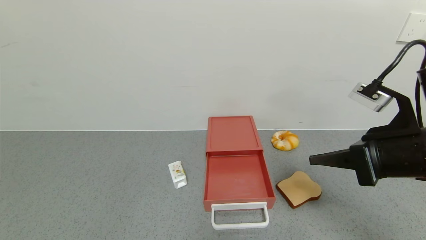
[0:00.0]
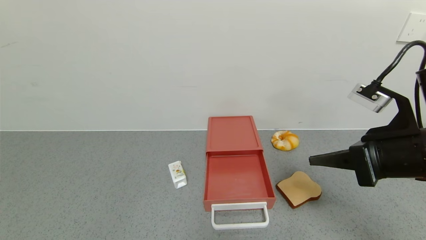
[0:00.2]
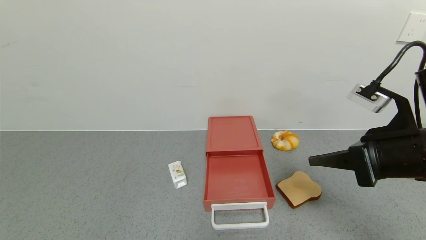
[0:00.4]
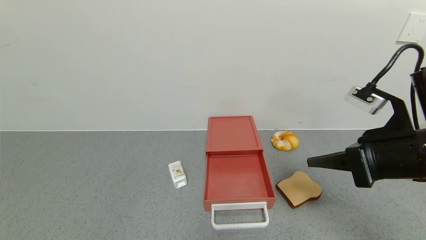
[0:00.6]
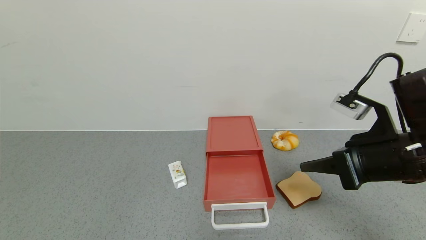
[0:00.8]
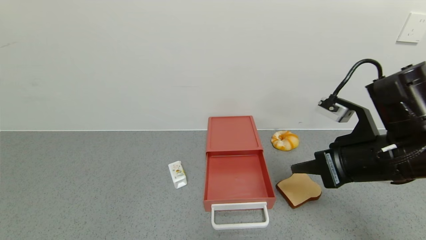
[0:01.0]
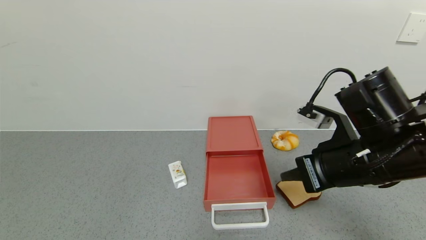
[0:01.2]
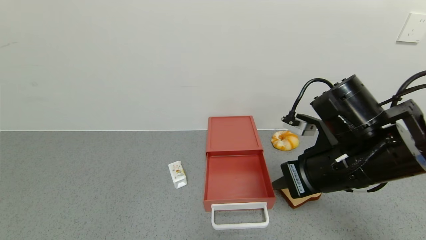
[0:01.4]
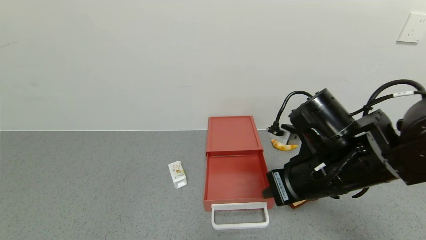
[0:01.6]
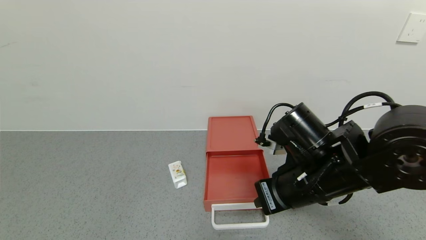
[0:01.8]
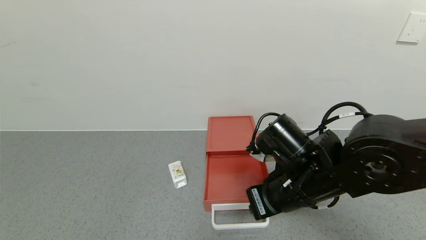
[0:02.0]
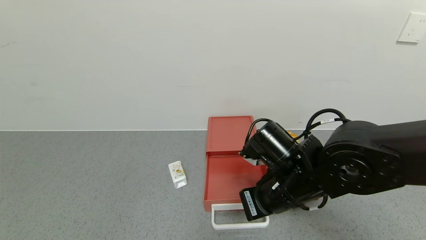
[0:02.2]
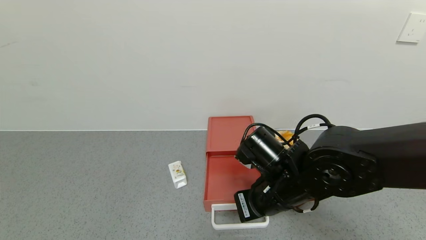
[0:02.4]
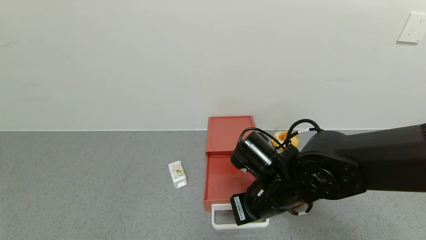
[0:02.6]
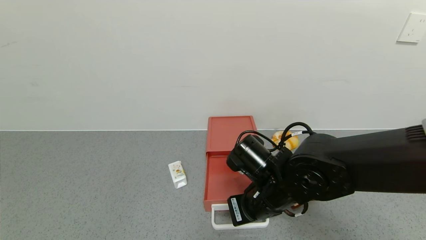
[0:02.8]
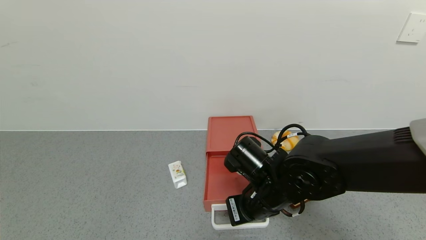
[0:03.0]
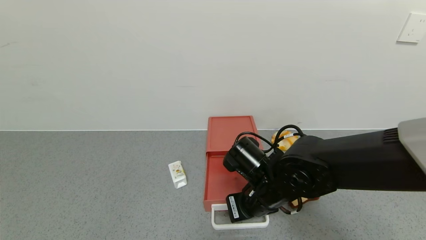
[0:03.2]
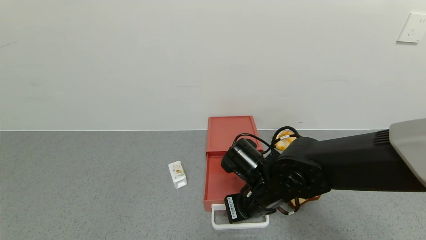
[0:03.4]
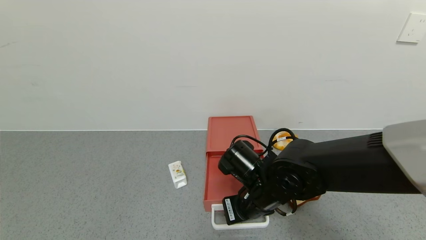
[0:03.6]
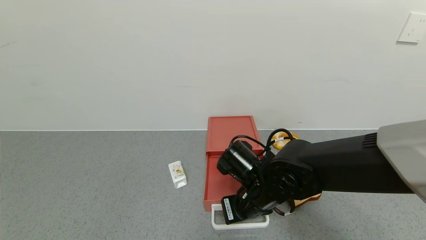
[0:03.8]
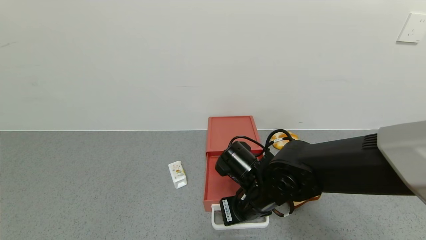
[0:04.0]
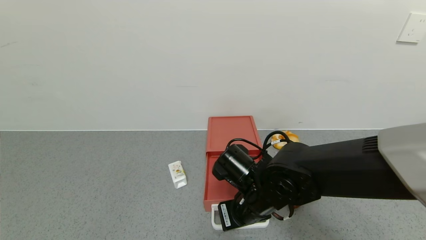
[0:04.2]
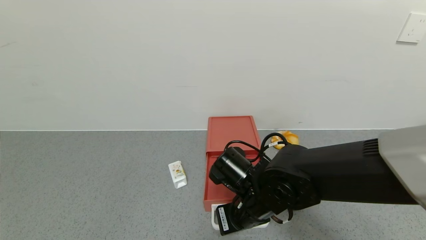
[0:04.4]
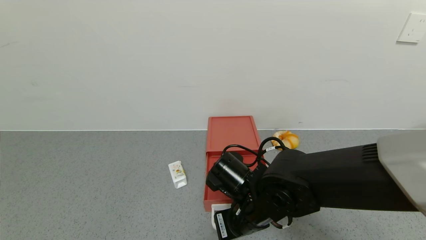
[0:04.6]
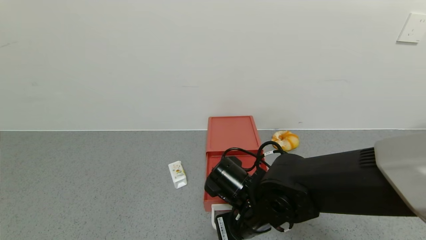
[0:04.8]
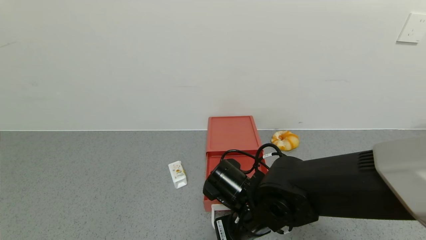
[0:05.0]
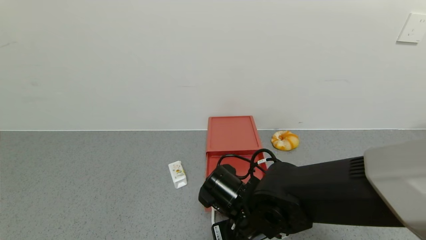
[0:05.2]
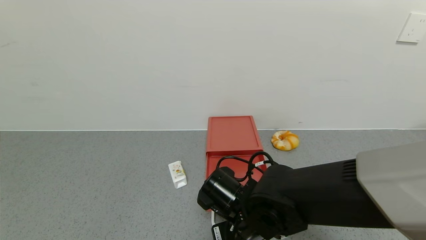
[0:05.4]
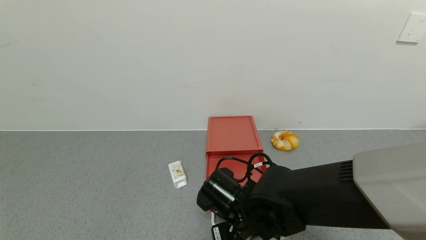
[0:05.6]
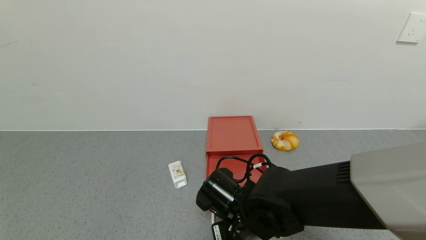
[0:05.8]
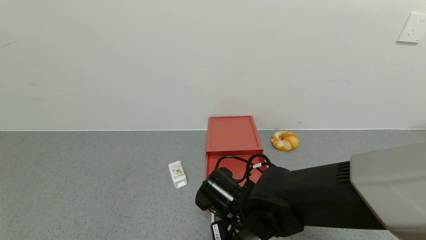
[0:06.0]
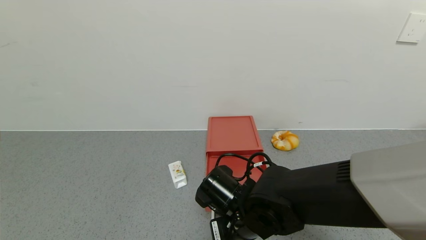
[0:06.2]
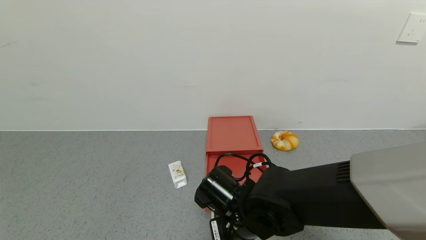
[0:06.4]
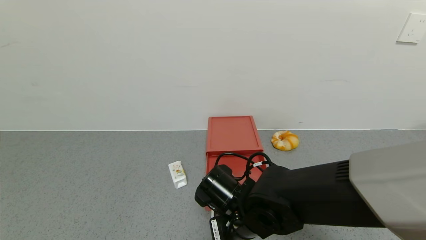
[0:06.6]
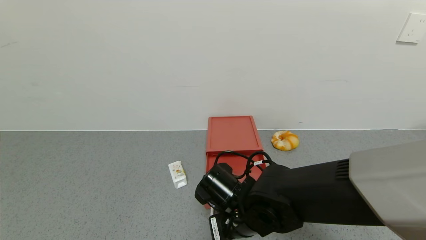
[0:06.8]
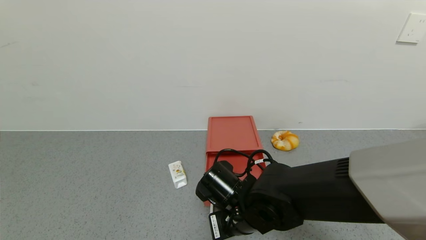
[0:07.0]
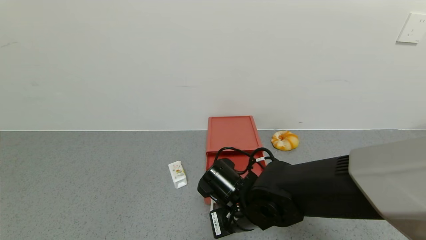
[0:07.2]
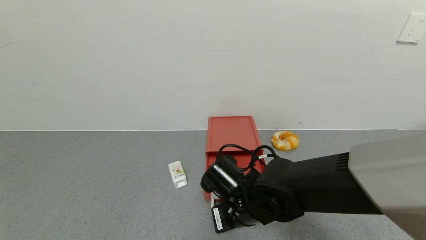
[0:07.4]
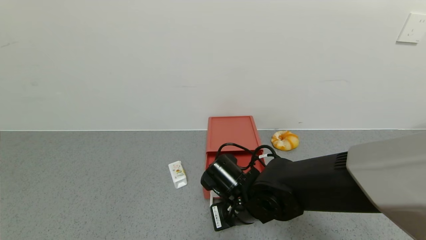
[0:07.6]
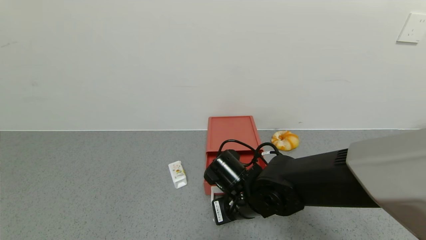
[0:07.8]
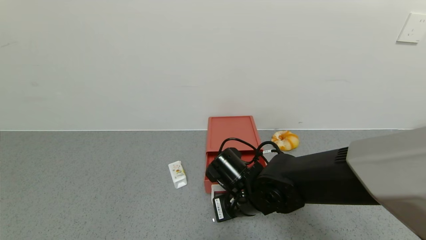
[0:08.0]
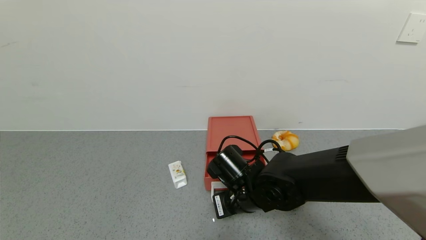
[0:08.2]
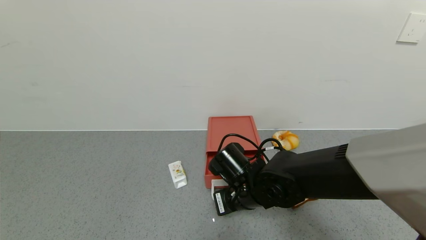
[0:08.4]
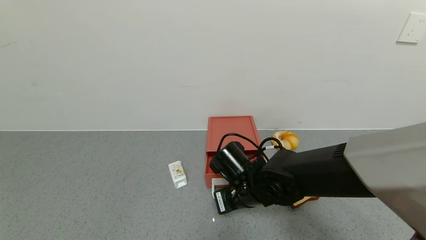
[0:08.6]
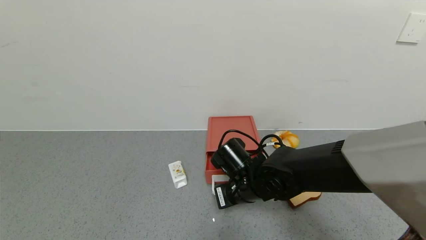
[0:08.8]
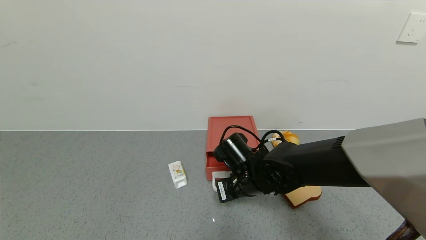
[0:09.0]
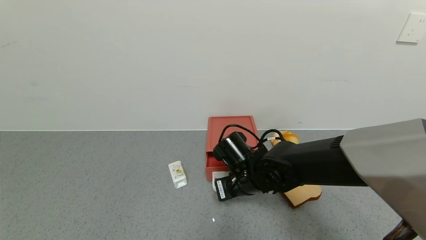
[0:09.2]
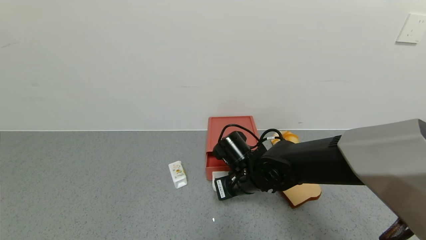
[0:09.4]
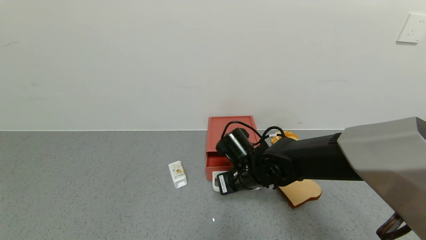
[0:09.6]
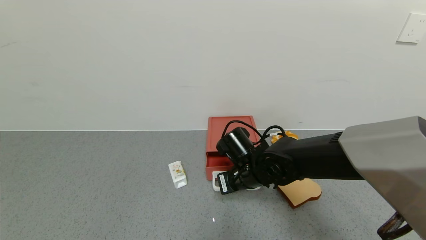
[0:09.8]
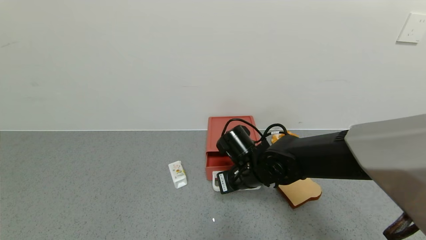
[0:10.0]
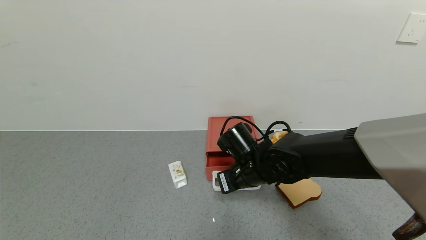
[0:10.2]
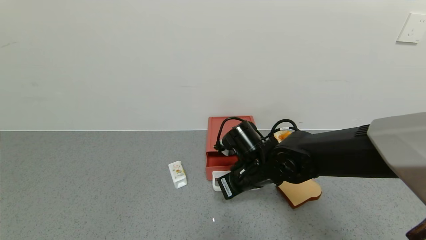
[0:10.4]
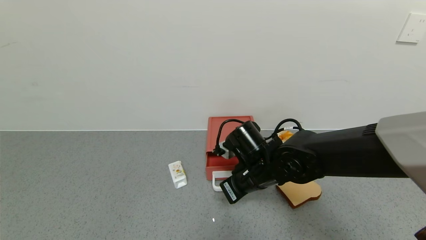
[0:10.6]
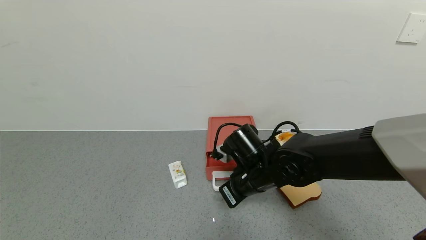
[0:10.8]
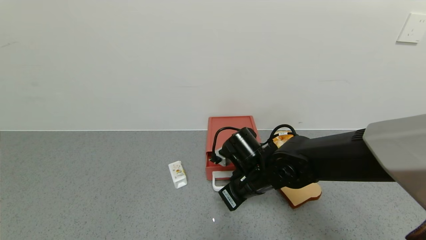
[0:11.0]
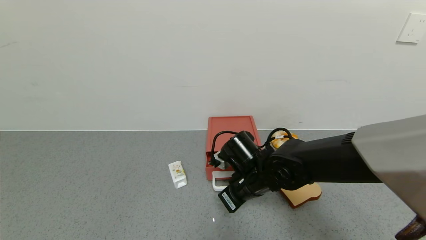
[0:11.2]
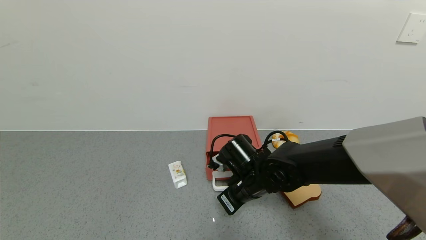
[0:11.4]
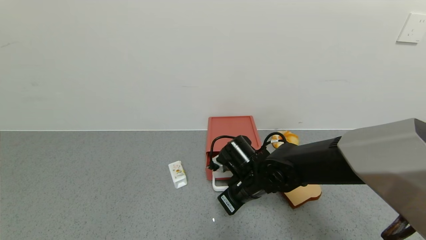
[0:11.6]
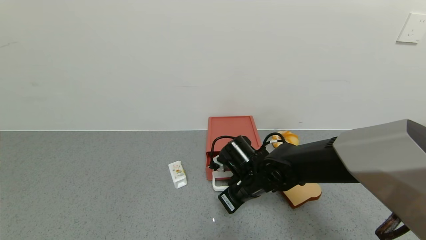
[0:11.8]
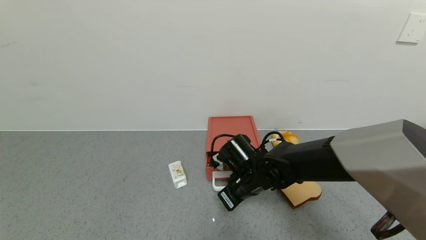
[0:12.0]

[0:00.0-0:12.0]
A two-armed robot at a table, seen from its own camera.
Task of the whole recording: use the gripper to open the drawer and close the red drawer.
0:00.0 to 0:01.6: The right gripper goes about 10 cm to the left and downward.
0:01.6 to 0:03.0: The right gripper moves downward and to the left, roughly 10 cm.
0:03.0 to 0:04.4: The grippers stay close to where they were, moving slightly.
0:04.4 to 0:09.0: The grippers move only a little.
0:09.0 to 0:10.4: There are only small adjustments of the grippers.
0:10.4 to 0:12.0: The grippers move only a little.

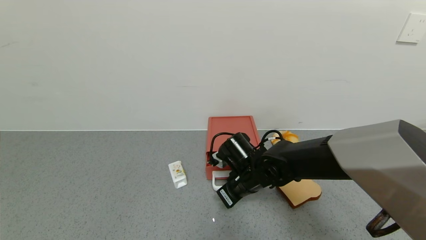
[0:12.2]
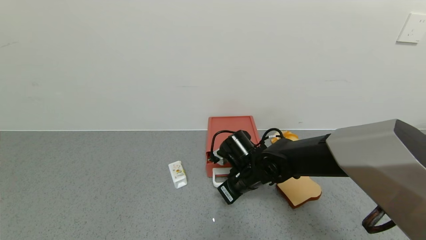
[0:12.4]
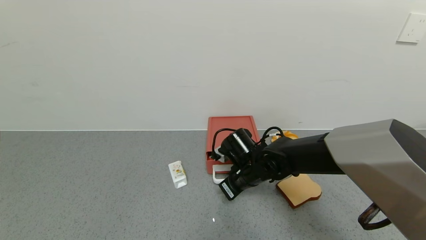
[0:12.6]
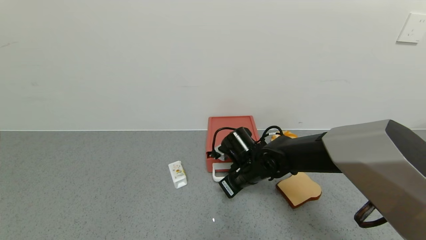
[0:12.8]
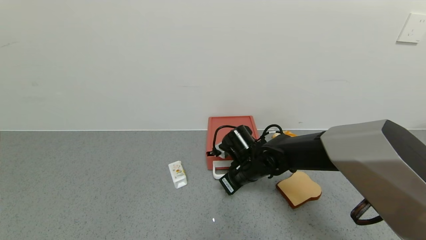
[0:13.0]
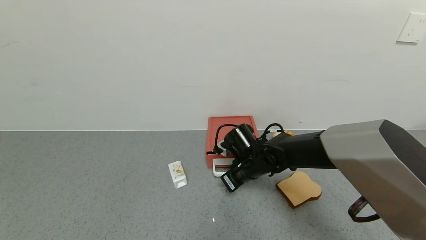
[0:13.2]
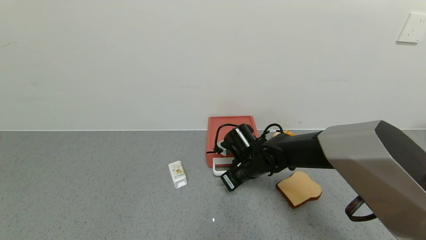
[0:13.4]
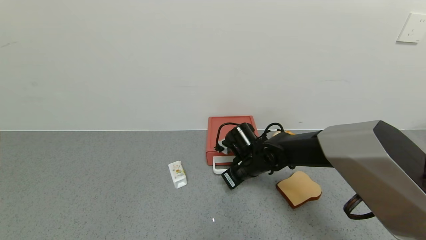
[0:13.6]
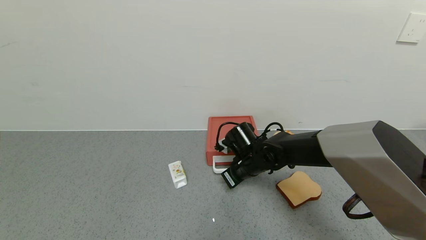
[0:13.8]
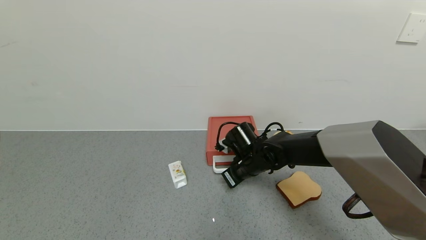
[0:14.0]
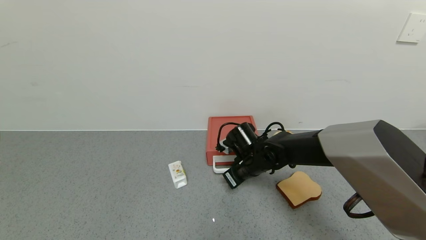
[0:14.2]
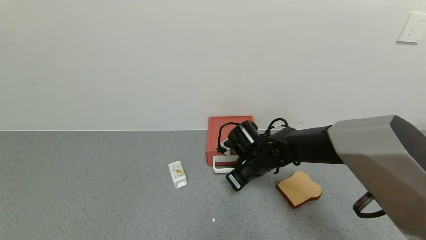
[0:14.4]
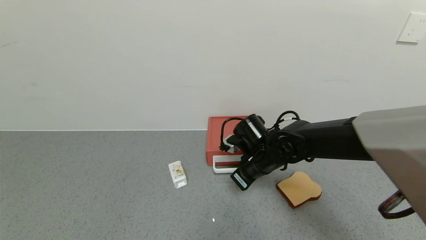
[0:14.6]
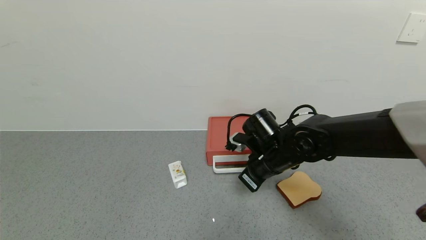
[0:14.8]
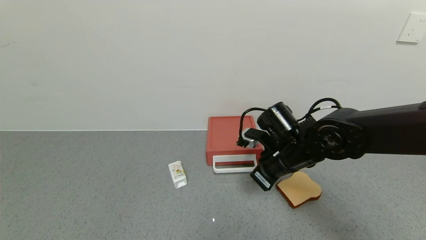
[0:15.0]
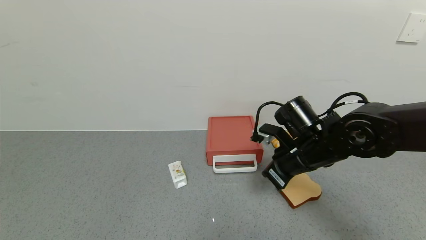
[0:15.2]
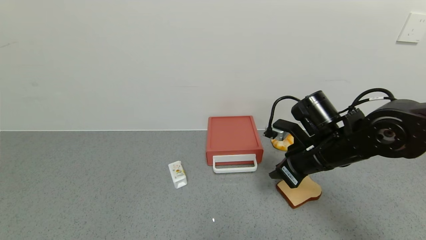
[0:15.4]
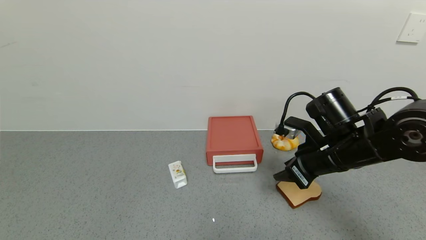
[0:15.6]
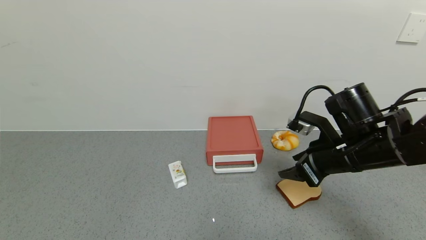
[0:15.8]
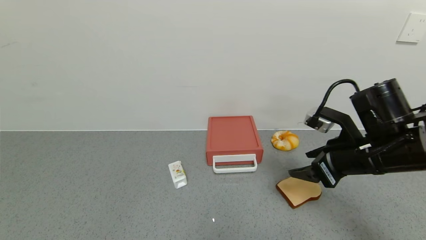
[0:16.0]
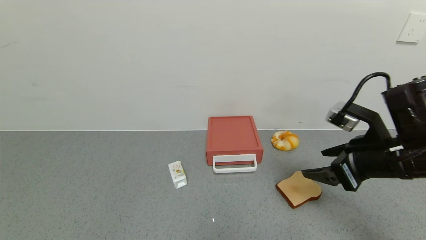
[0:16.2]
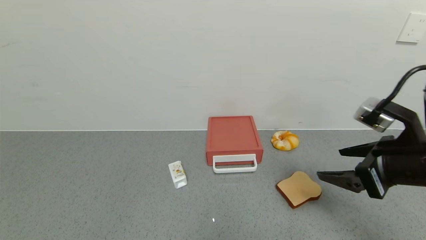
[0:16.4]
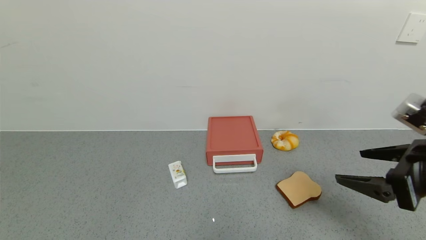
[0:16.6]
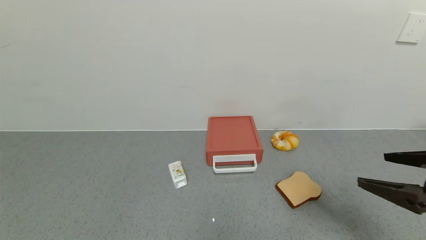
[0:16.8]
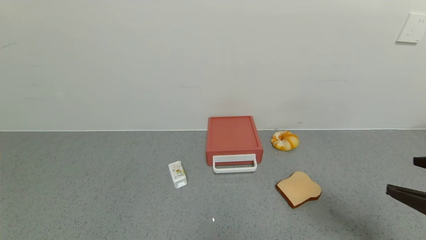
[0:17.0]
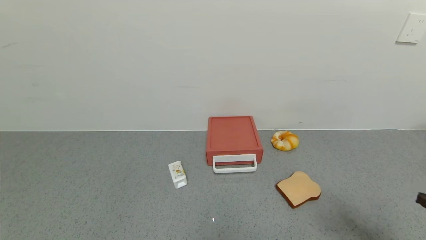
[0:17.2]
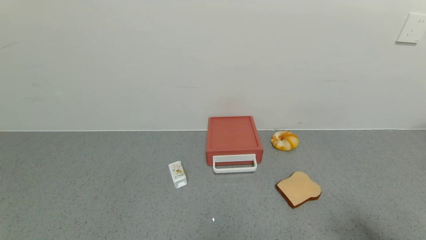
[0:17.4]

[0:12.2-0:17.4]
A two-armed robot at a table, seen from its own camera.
Task of the whole recording: use the gripper to open the drawer and close the red drawer.
Step, 0:12.2 to 0:14.8: Close the red drawer with the right gripper.
0:12.2 to 0:14.0: The right gripper ends up roughly 5 cm from where it was.
0:14.0 to 0:15.6: The right gripper shifts some 20 cm to the right, upward and backward, and opens up.
0:15.6 to 0:17.4: The right gripper is displaced backward and to the right by some 30 cm, and opens.
